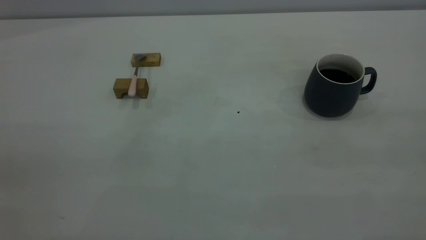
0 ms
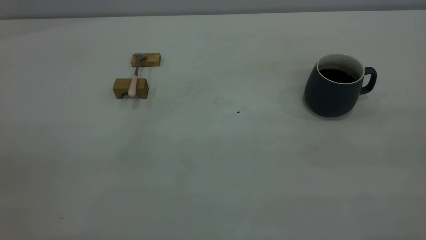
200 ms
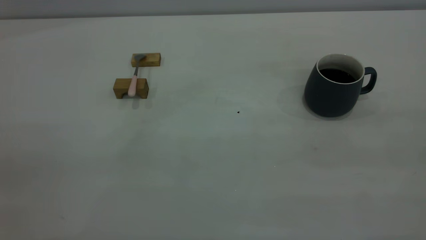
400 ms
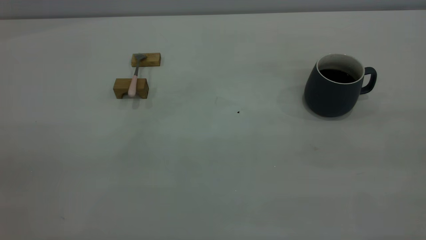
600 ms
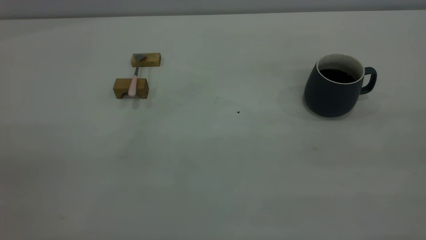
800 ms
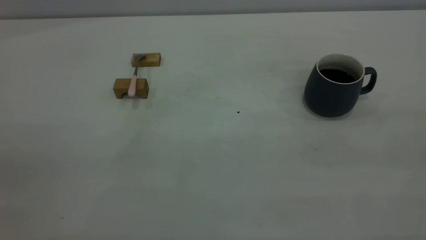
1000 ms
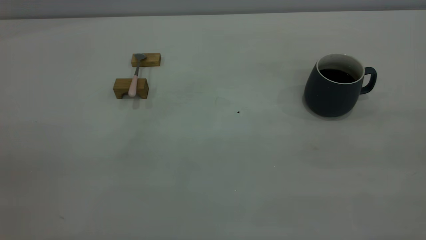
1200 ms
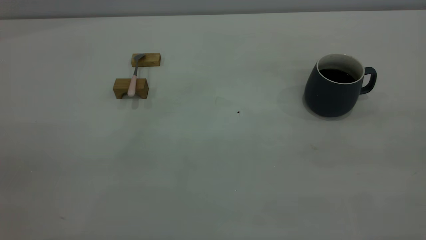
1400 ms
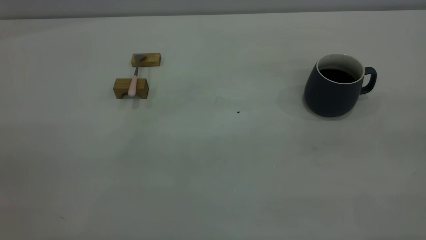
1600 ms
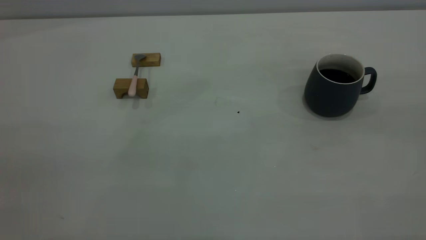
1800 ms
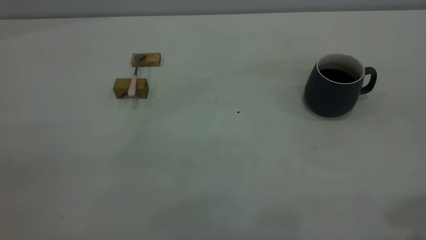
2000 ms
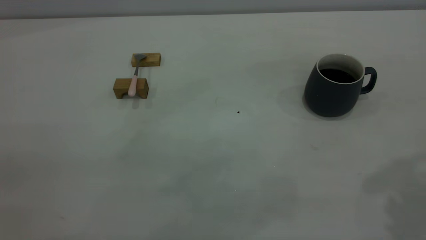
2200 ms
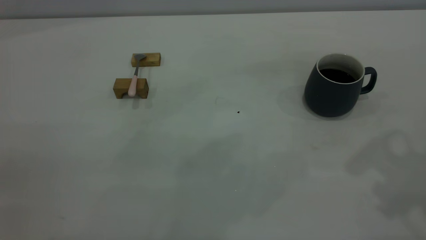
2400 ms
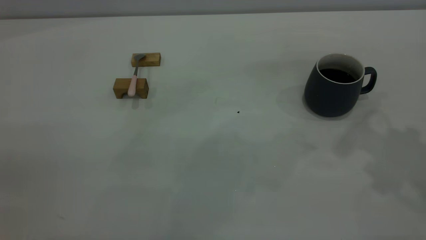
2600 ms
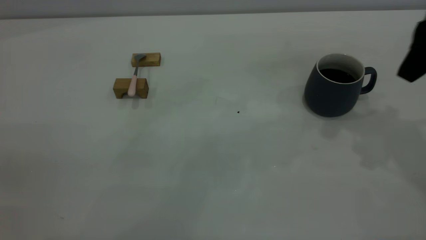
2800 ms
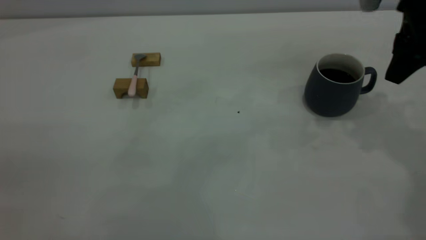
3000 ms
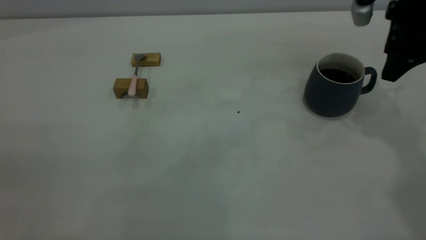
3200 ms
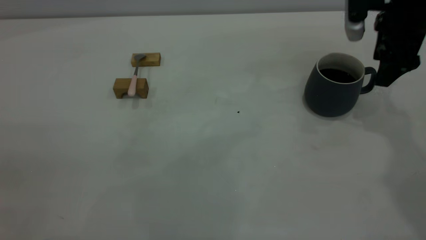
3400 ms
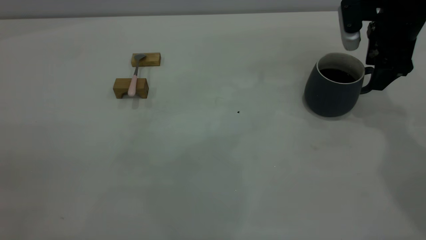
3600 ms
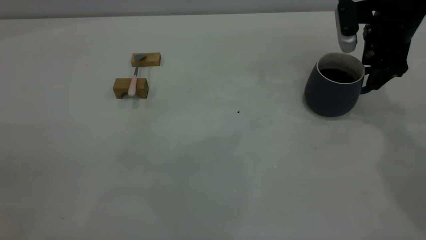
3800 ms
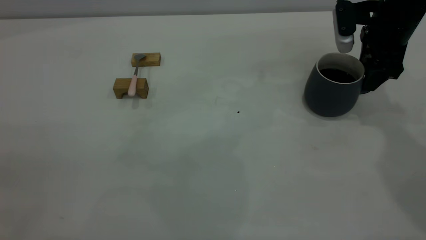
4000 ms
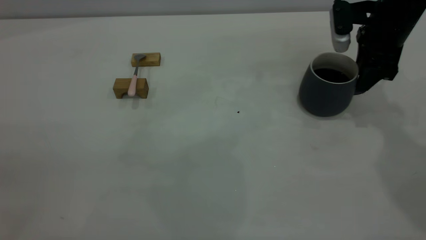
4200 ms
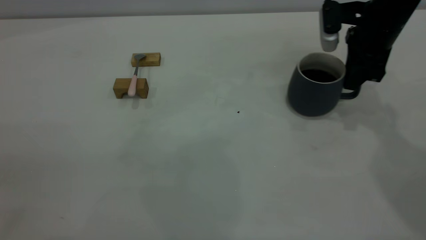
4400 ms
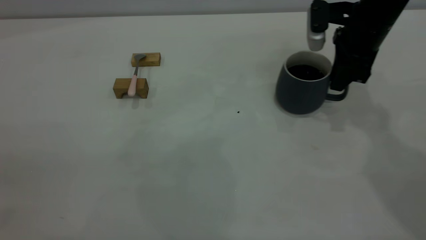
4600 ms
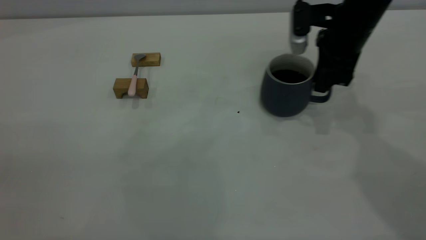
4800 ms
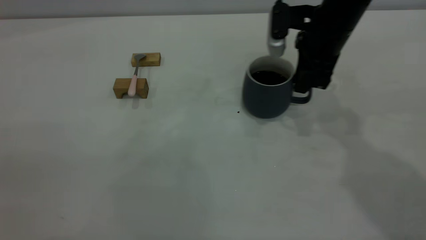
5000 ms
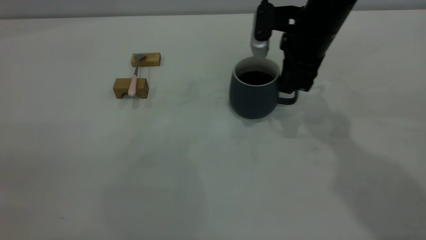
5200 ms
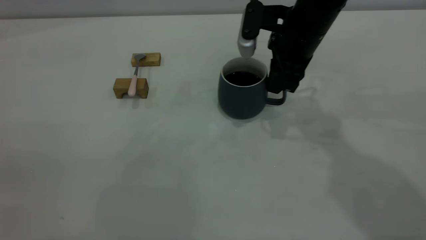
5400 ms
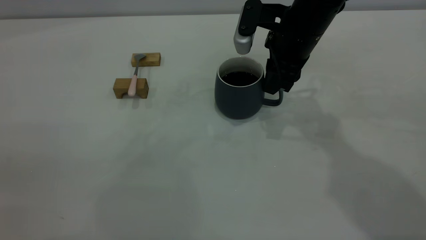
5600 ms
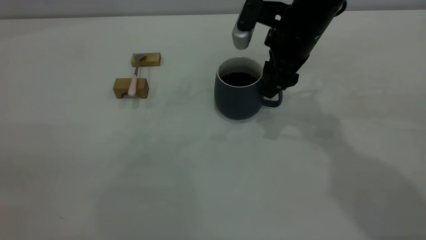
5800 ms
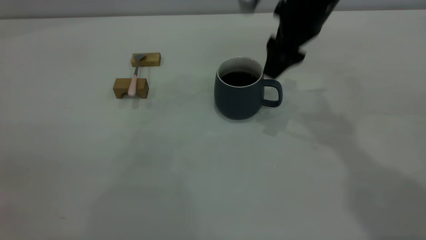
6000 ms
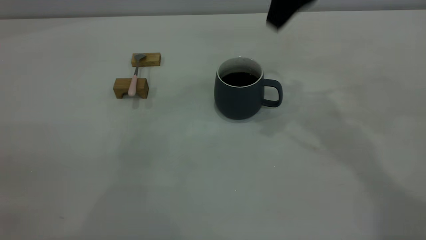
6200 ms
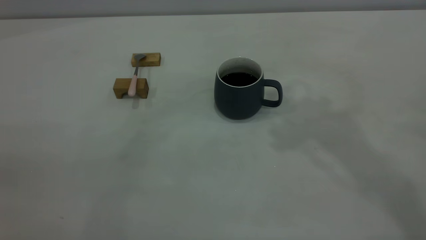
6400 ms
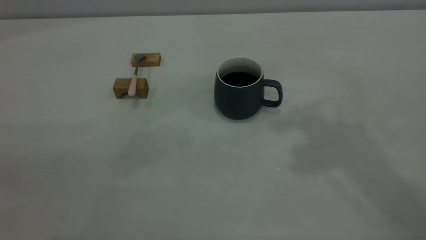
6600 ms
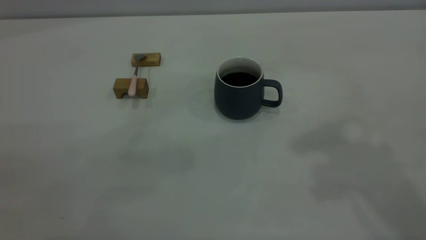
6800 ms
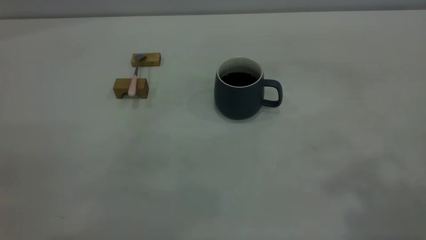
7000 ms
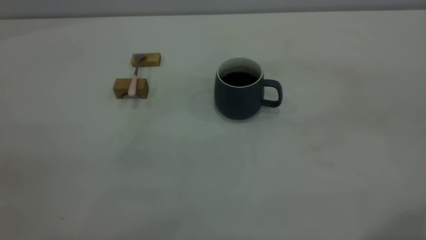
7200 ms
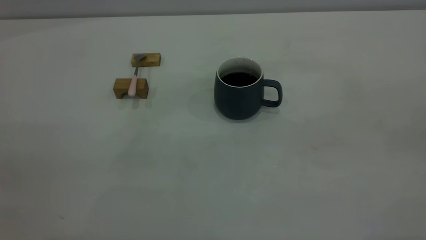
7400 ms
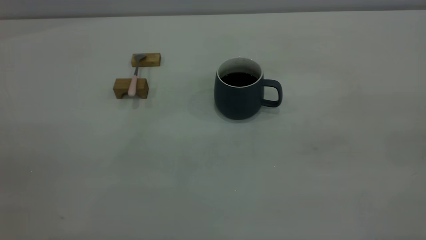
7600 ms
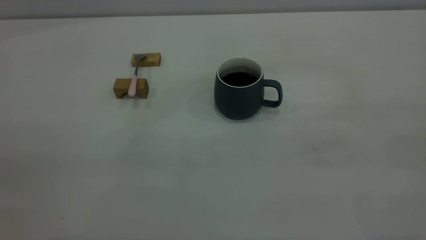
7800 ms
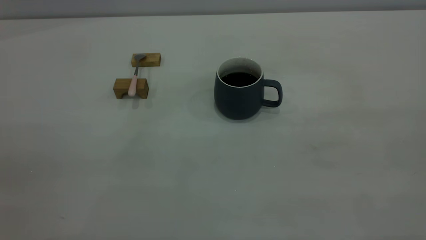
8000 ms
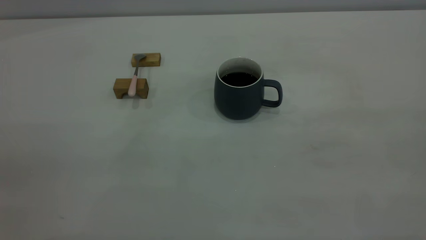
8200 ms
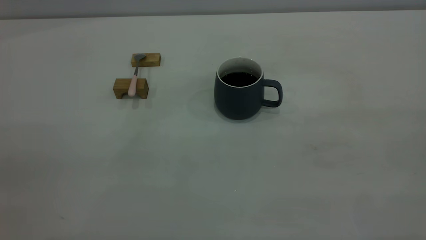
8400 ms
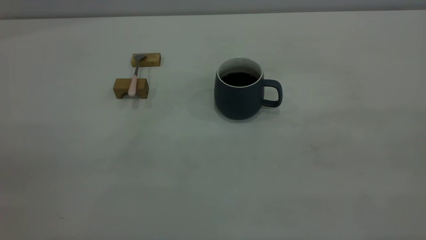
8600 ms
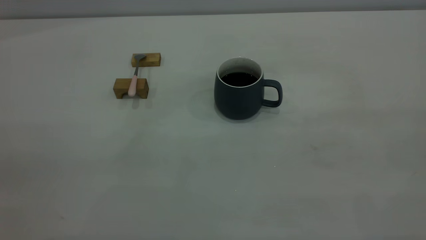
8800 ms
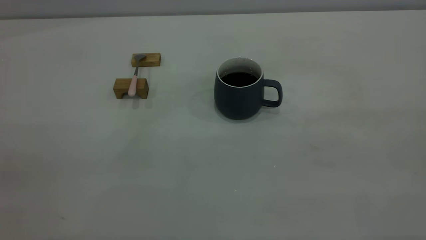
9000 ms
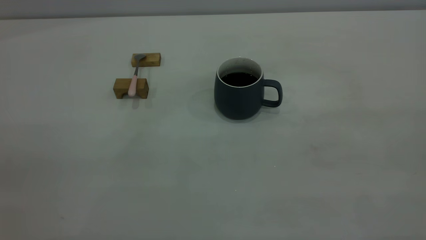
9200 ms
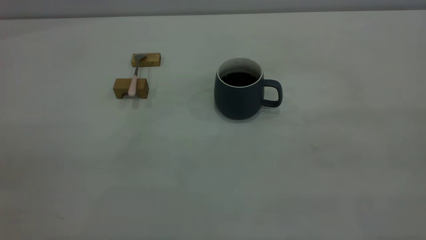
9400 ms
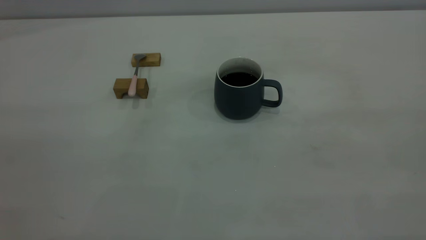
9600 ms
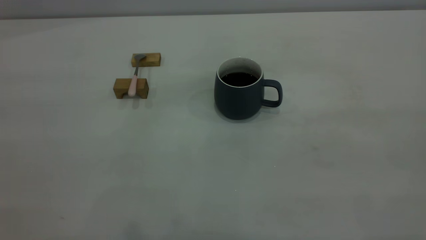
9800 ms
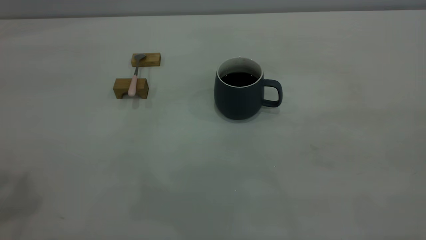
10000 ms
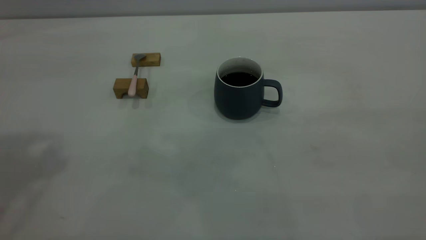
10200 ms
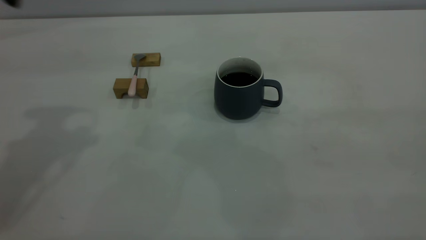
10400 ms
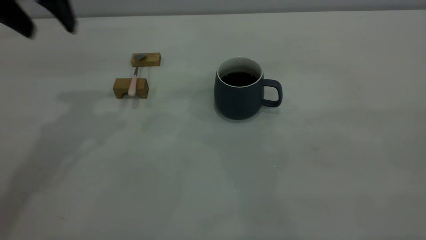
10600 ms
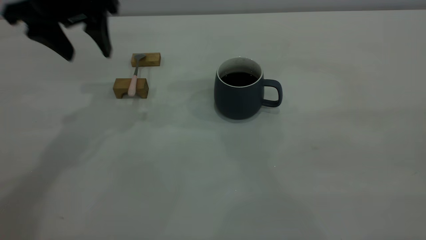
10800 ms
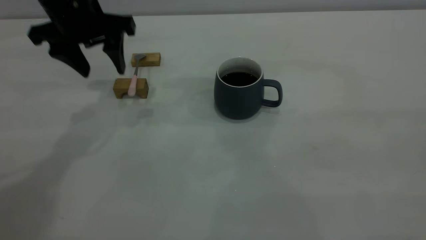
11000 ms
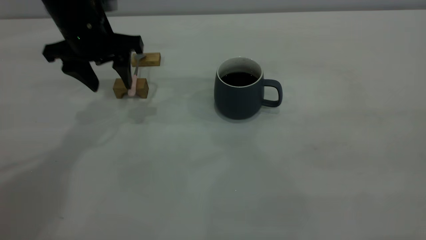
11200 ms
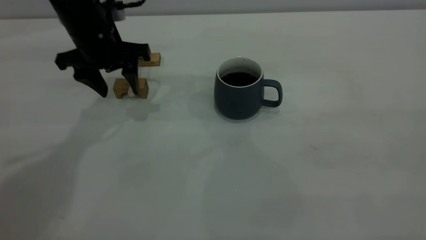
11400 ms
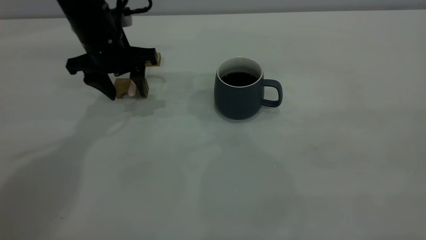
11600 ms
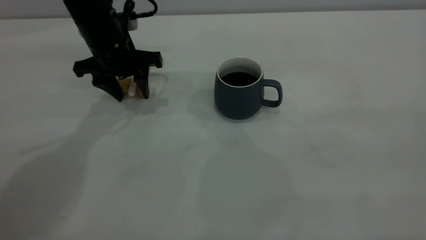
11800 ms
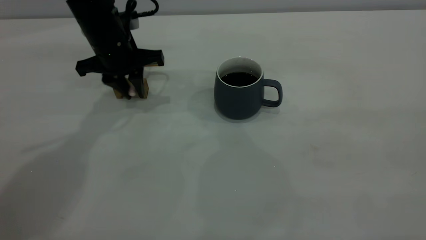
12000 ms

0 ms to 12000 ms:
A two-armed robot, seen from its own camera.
Step, 0 ms to 6000 ms: Move the cup with coffee to the center of view.
1600 ms to 3000 ms: The right gripper is displaced forward and downward by some 40 cm, and opens.
3000 ms to 4400 ms: The right gripper goes approximately 10 cm downward and forward, and closes its fingers.
4400 ms to 6000 ms: The right gripper is displaced to the left and upward by about 15 cm, and opens up.
6000 ms to 7600 ms: The right gripper moves backward, upward and to the right, some 40 cm.
10400 ms to 12000 ms: The left gripper travels downward and forward by about 25 cm, and closes.

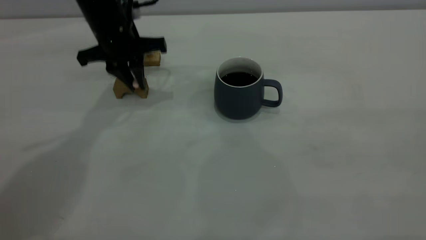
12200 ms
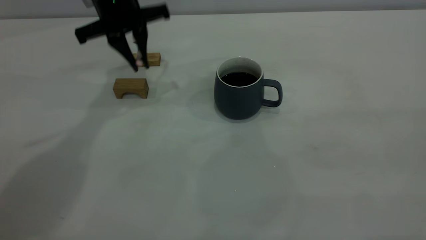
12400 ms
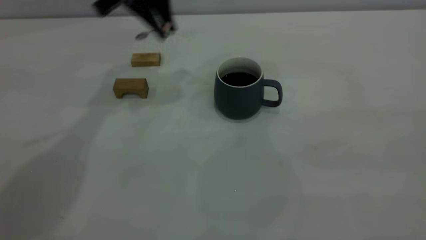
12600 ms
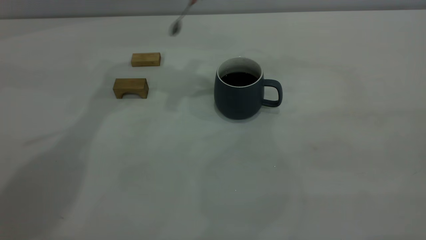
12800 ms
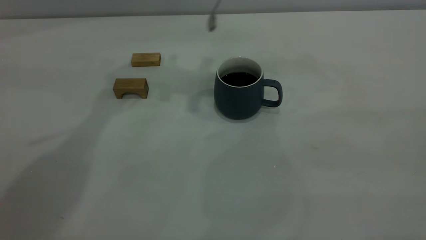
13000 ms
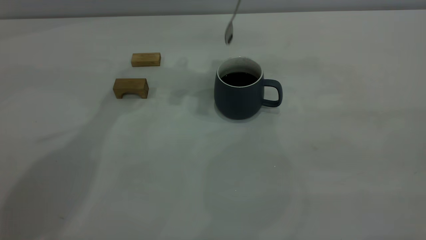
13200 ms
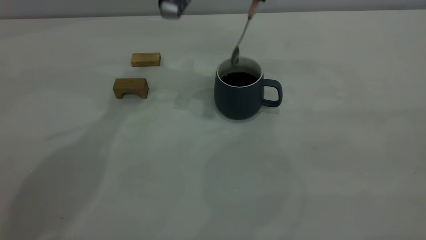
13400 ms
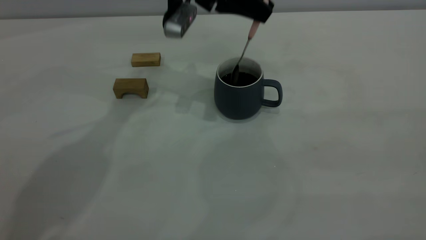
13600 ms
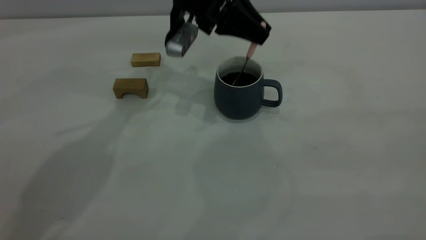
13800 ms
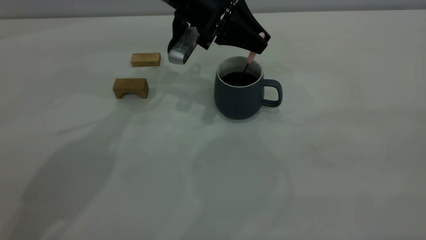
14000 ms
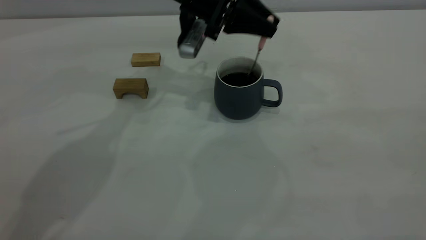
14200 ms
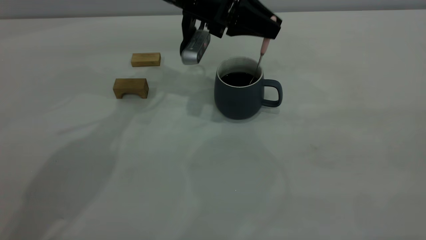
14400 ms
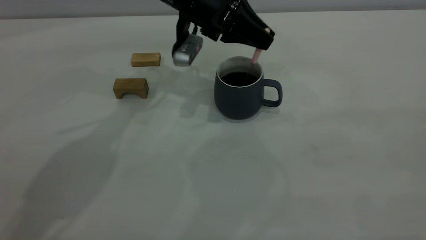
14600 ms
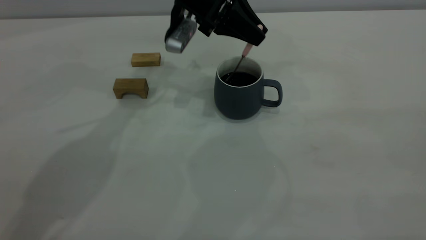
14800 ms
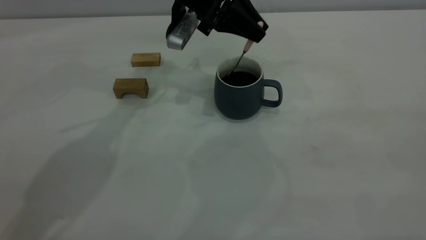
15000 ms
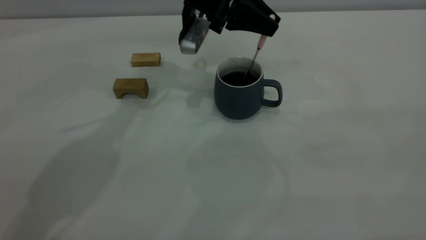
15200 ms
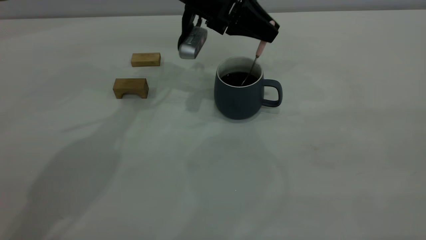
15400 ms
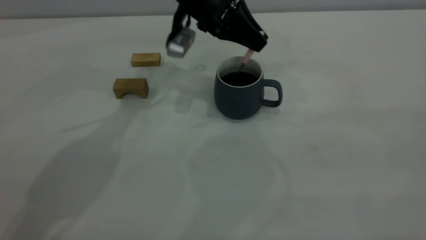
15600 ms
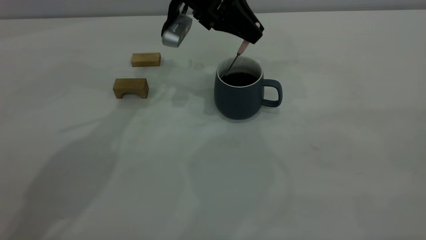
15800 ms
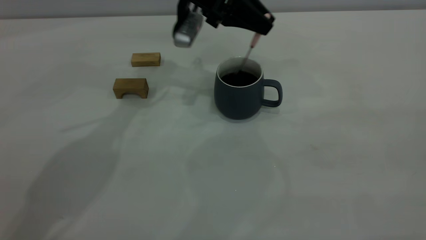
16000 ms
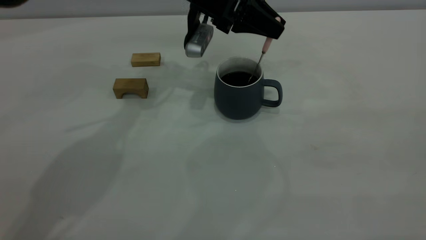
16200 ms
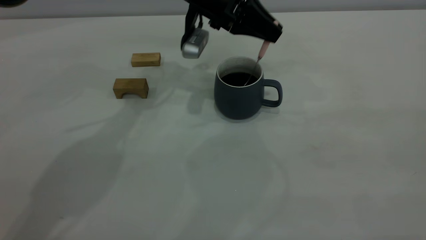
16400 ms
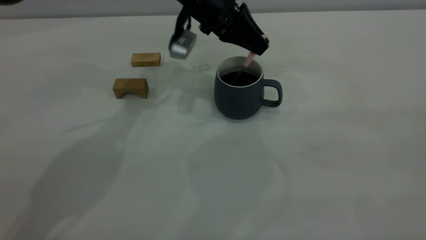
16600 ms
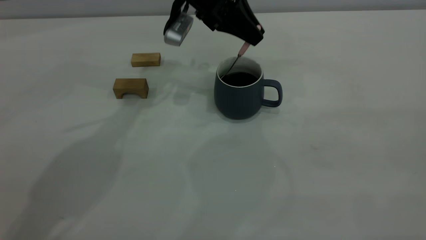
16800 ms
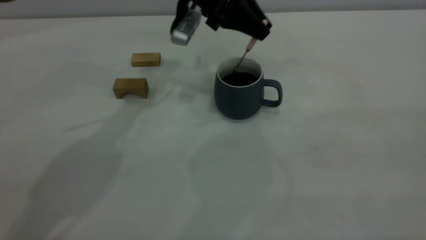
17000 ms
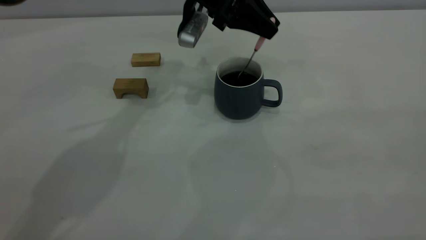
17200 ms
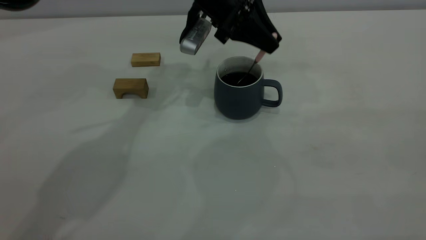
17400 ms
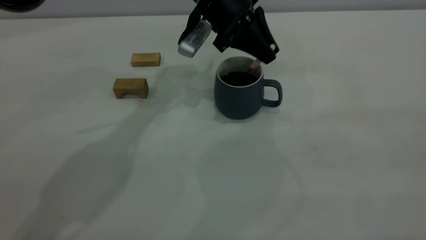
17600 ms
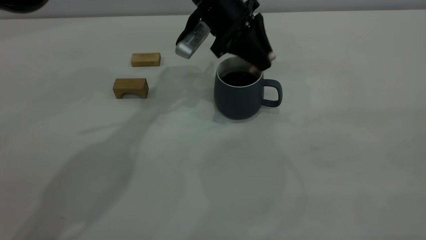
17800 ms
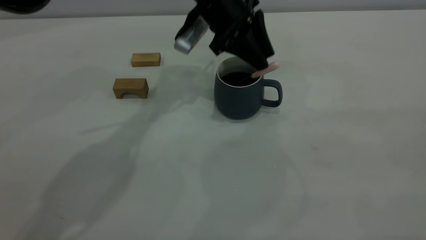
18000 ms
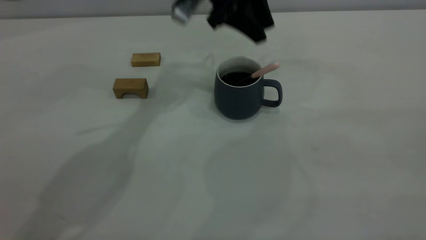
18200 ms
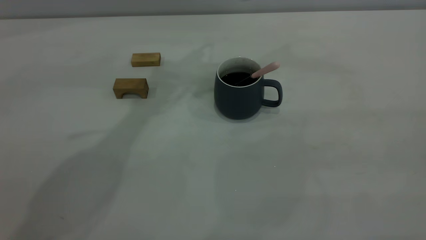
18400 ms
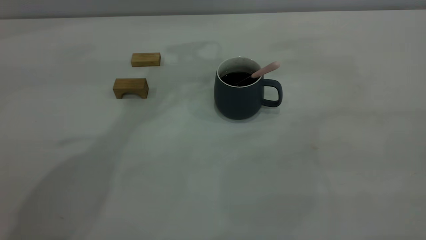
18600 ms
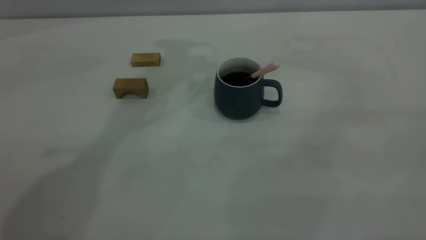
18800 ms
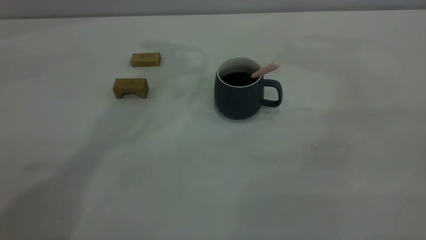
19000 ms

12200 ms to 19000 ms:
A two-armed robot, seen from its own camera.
Step, 12400 ms to 18200 ms: Stir the coffee in the cup.
12200 ms to 13600 ms: The left gripper goes approximately 15 cm to the right and upward.
13600 ms to 16200 ms: There are only small adjustments of the grippers.
17600 ms to 19000 ms: The left gripper travels upward by roughly 30 cm, and opens.
